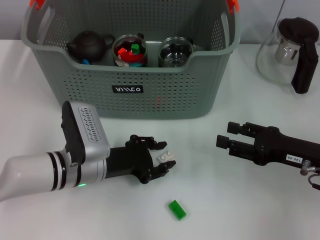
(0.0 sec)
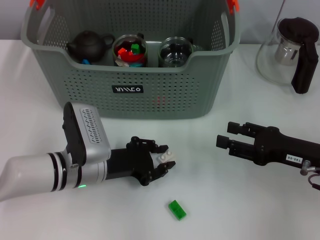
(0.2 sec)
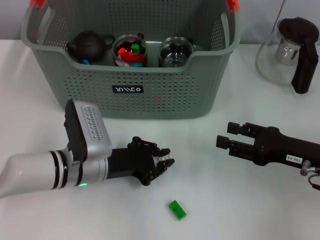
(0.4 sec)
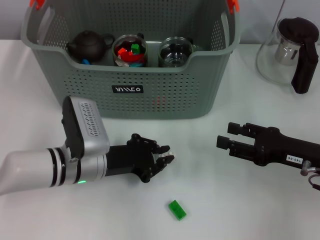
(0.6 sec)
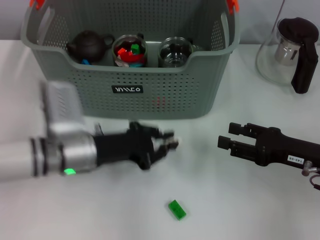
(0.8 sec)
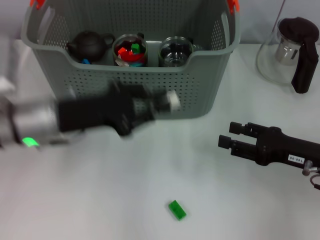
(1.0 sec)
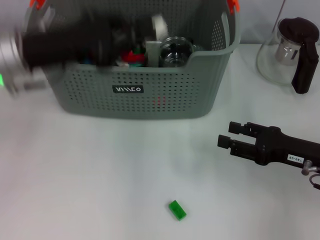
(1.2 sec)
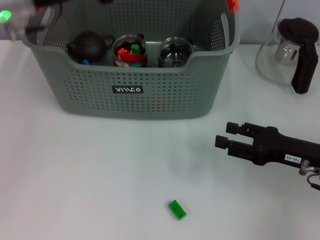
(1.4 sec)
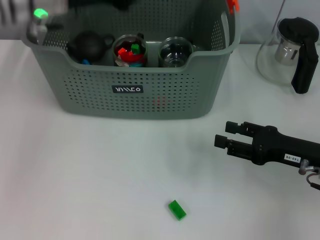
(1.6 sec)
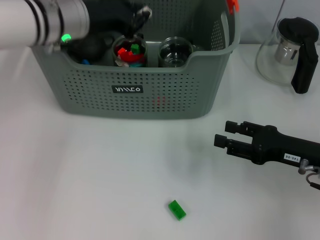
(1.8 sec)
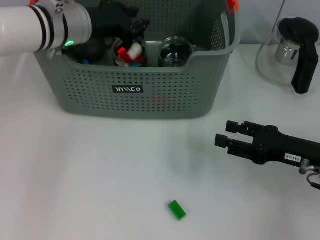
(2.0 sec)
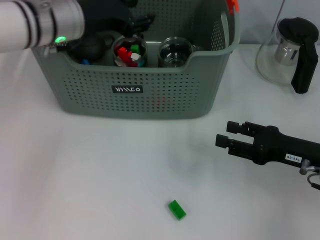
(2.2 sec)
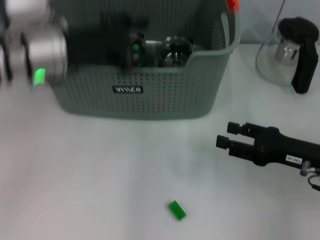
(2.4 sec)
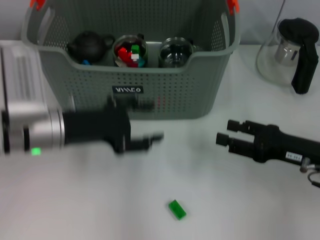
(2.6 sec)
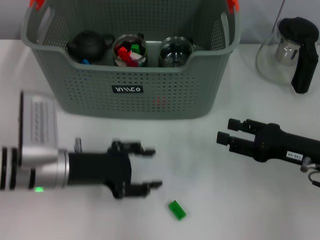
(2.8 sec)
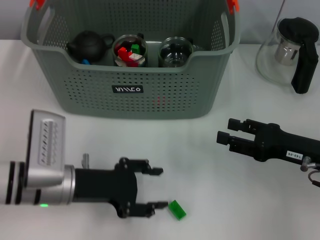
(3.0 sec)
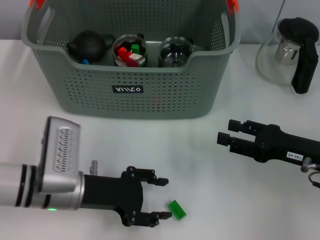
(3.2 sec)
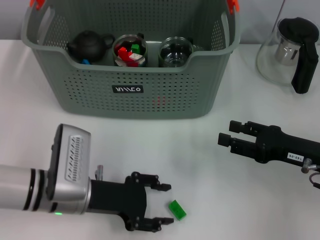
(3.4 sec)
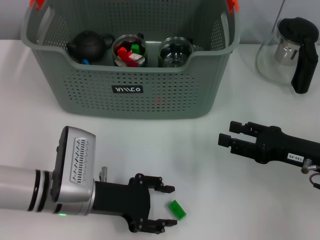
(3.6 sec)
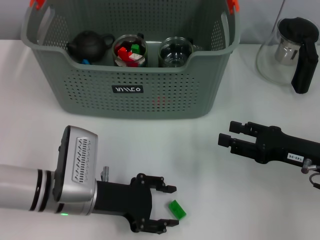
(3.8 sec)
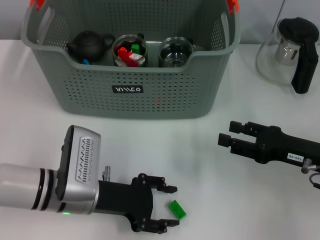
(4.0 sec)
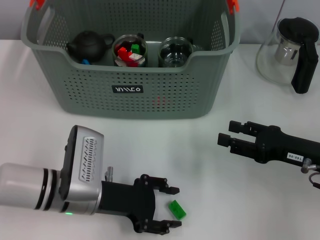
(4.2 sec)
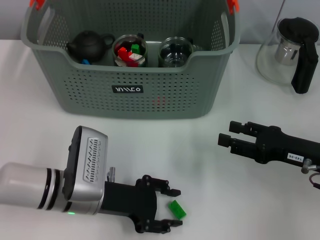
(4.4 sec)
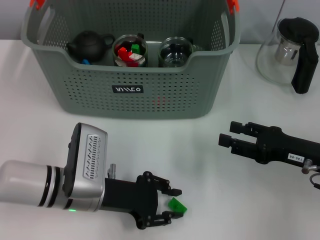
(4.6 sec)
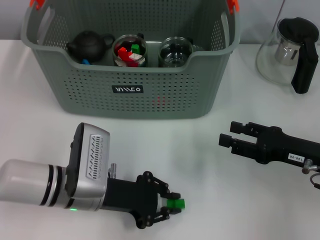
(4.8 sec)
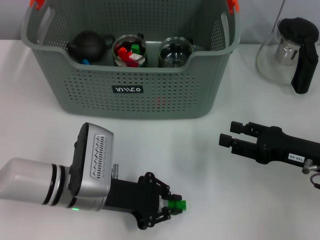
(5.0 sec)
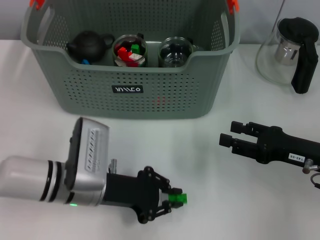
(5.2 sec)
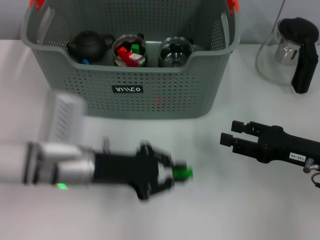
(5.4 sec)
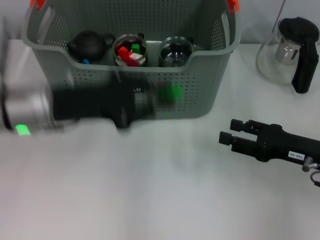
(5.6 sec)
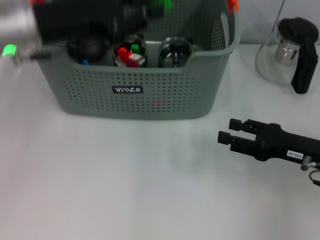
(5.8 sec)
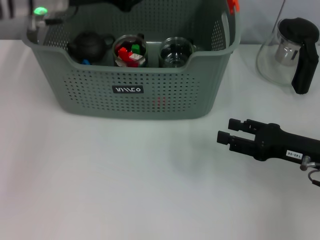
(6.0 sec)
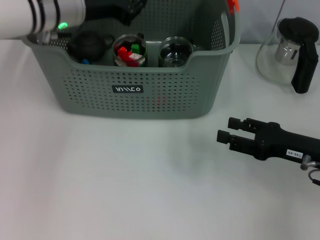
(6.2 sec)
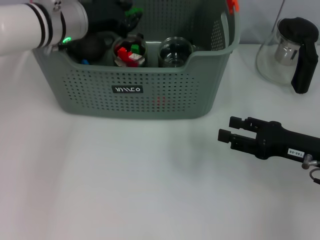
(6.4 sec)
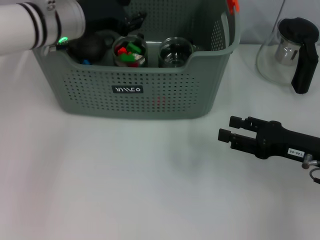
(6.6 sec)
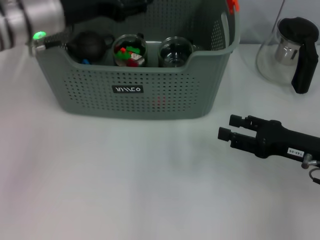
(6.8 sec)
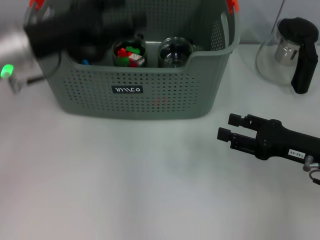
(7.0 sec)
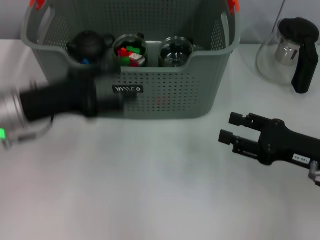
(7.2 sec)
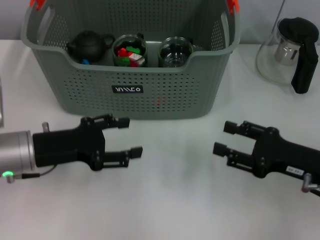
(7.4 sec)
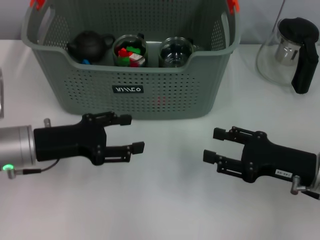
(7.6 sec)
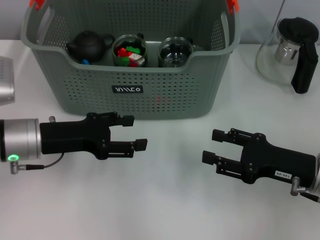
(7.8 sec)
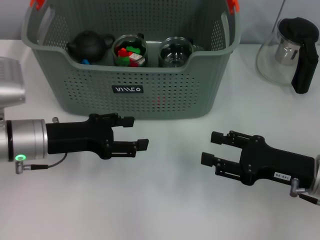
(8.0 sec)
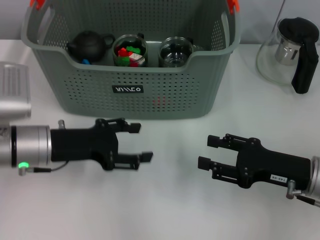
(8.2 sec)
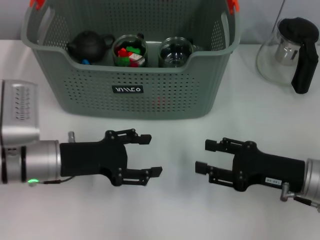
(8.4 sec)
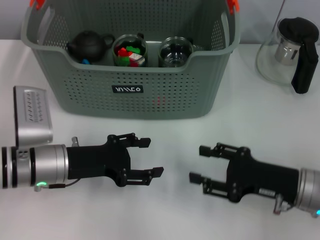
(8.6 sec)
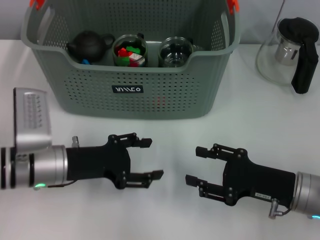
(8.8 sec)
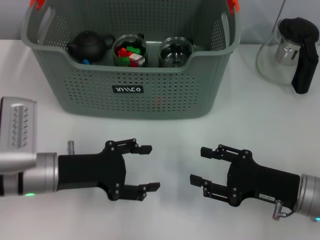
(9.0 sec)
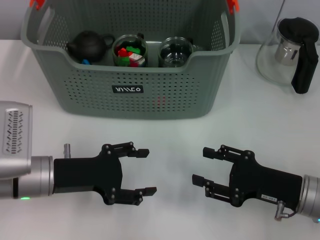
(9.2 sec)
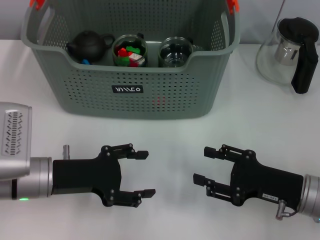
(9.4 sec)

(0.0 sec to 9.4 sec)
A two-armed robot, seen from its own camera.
Task of the whole recording: pick up the teacup on the table and place it into the storage bin, pick up the block on the table and place it into the storage bin.
Step, 0.6 sec - 2.0 sec: Place the white block in the storage box with left gripper.
Step, 2.4 sec - 4.8 sec: Grasp the green block with left gripper.
Step, 5.0 sec - 6.8 sec: Place the green block in the storage box with left gripper.
0.0 sec - 1.6 sec: The left gripper heads upward and forward, covering about 25 cm.
1.6 sec - 3.2 sec: The left gripper shifts approximately 25 cm downward and backward, and opens its fingers.
3.2 sec - 4.8 sec: The left gripper closes its fingers.
4.8 sec - 6.2 sec: The left gripper is displaced forward and upward by approximately 25 cm.
6.2 sec - 7.8 sec: The left gripper goes some 20 cm backward, downward and to the left, and opens.
7.8 sec - 9.4 sec: The left gripper changes place by approximately 5 cm.
